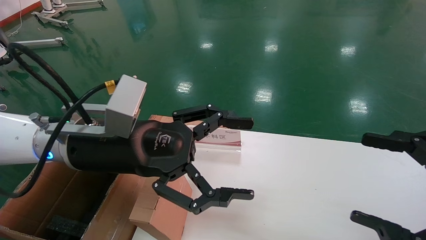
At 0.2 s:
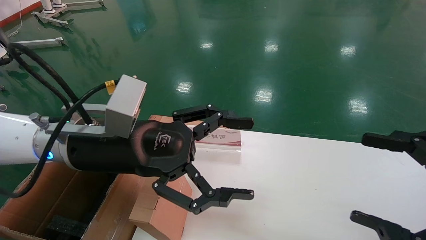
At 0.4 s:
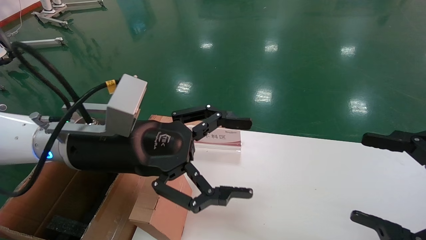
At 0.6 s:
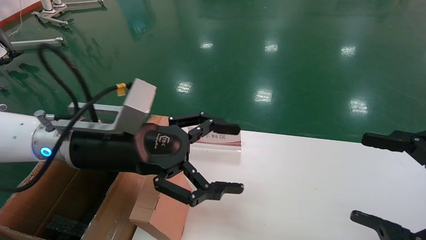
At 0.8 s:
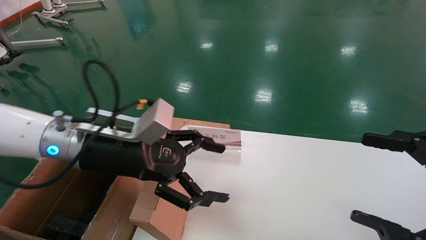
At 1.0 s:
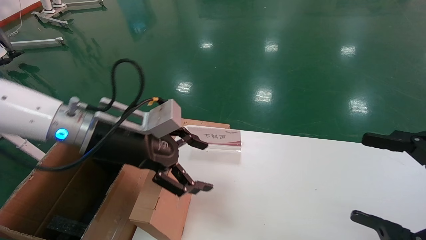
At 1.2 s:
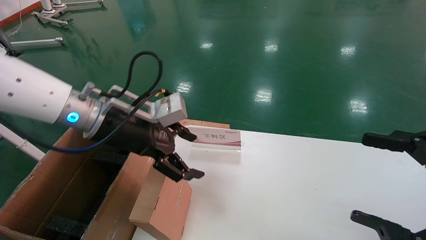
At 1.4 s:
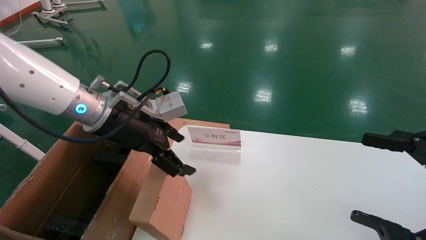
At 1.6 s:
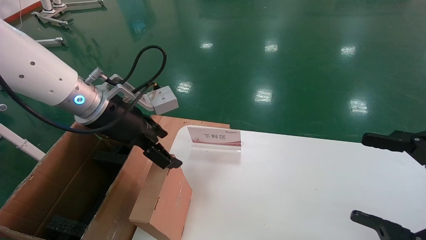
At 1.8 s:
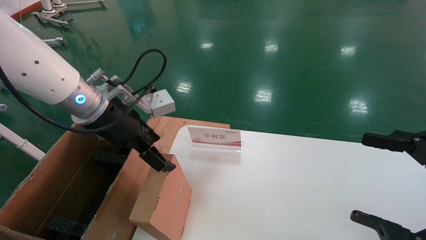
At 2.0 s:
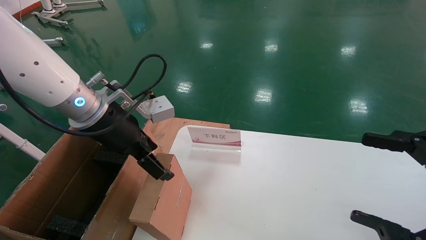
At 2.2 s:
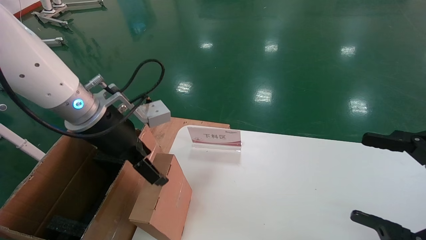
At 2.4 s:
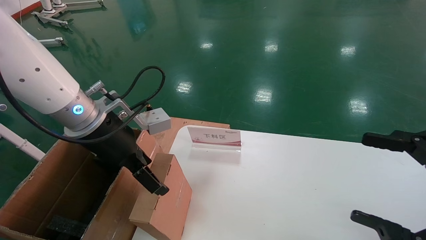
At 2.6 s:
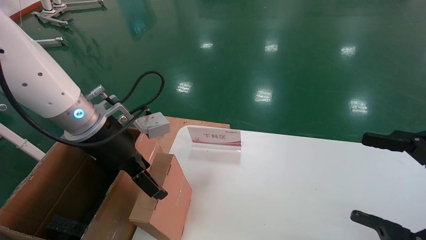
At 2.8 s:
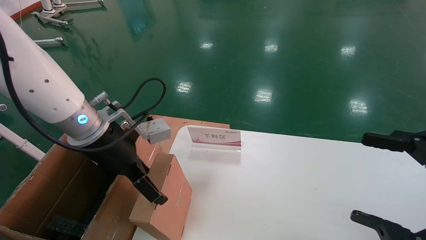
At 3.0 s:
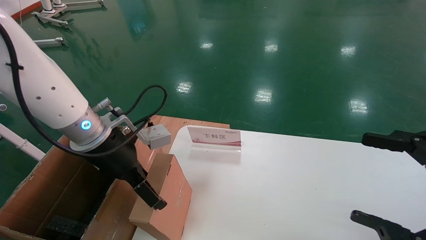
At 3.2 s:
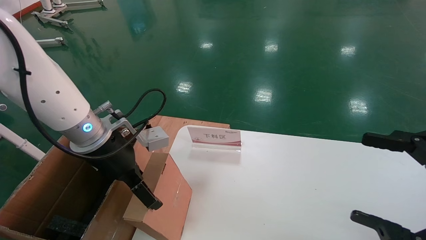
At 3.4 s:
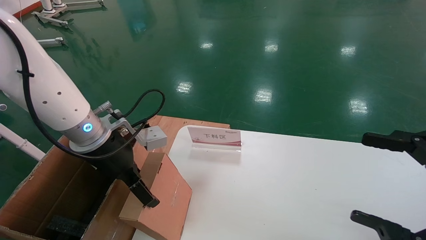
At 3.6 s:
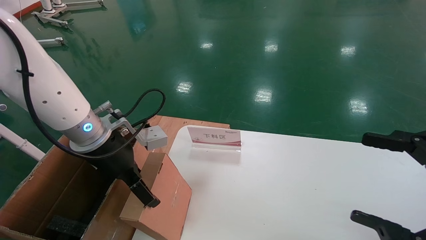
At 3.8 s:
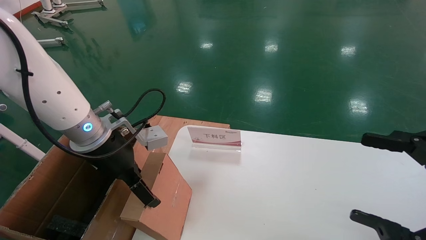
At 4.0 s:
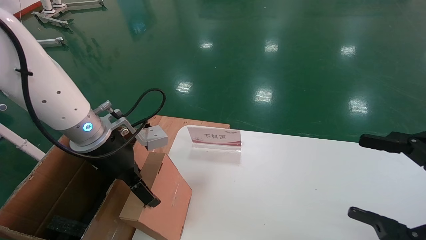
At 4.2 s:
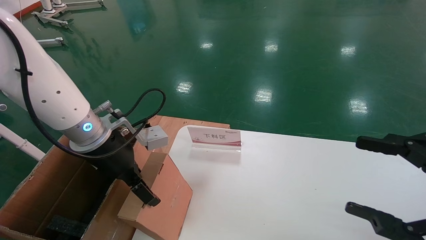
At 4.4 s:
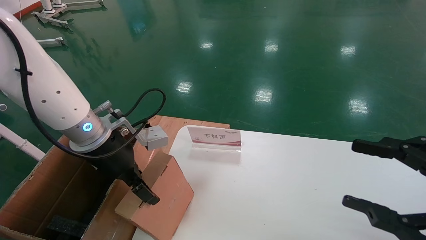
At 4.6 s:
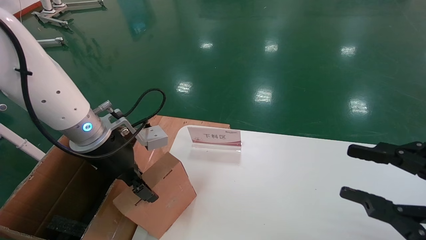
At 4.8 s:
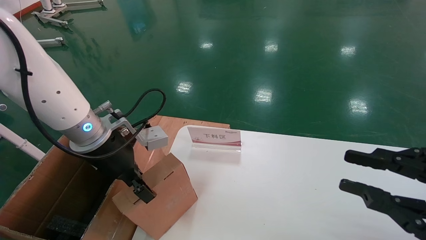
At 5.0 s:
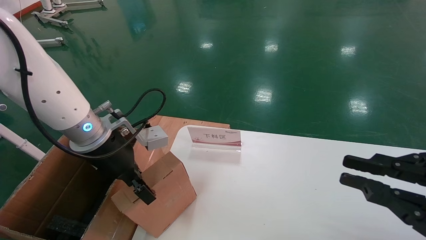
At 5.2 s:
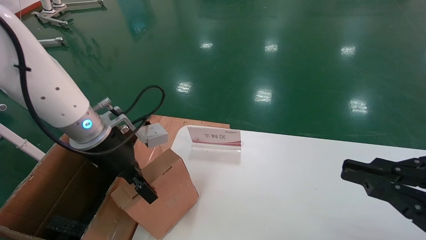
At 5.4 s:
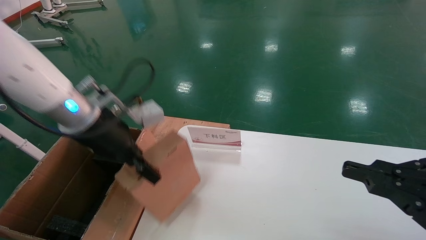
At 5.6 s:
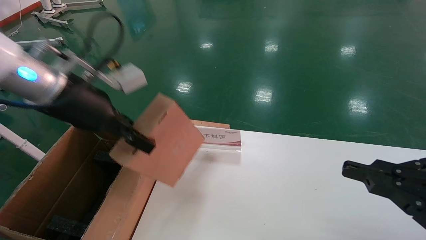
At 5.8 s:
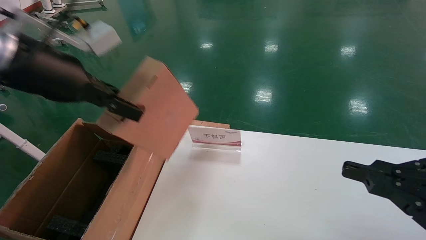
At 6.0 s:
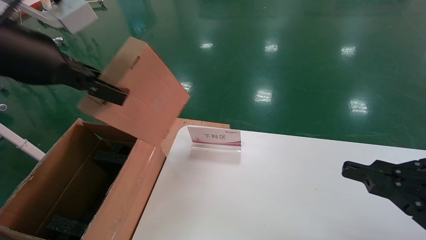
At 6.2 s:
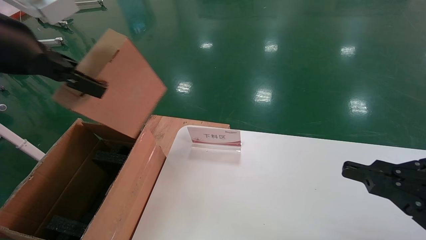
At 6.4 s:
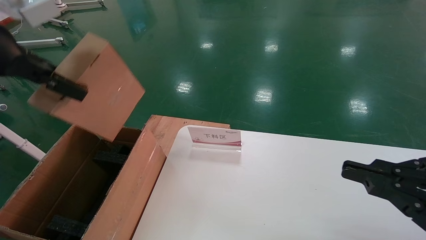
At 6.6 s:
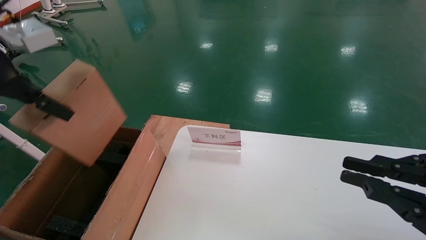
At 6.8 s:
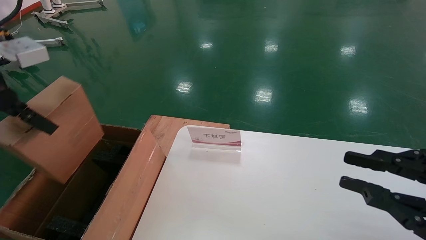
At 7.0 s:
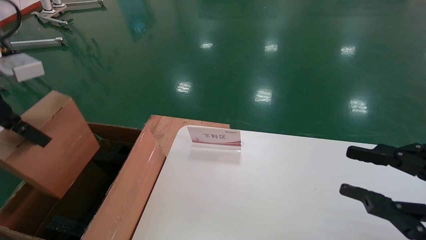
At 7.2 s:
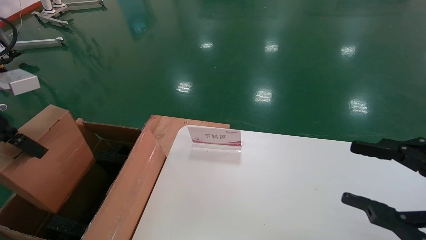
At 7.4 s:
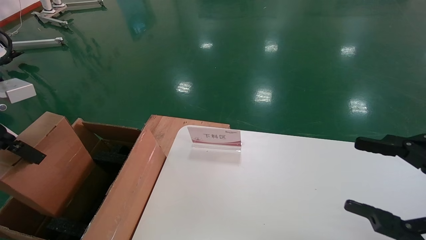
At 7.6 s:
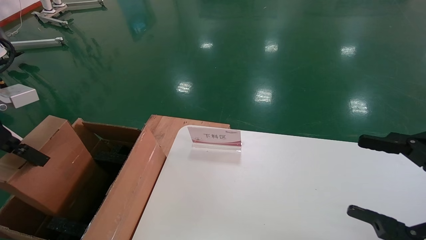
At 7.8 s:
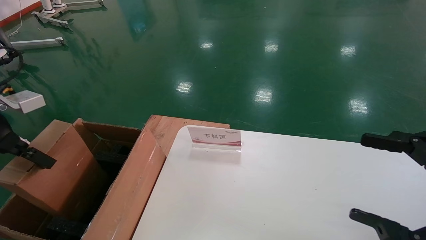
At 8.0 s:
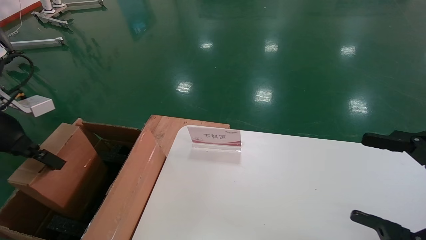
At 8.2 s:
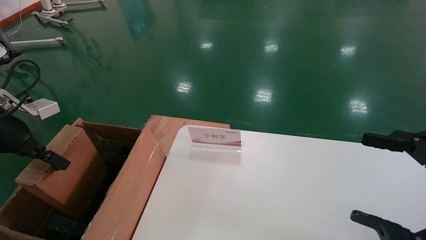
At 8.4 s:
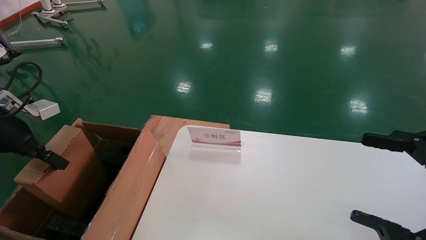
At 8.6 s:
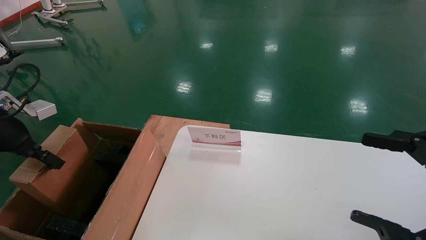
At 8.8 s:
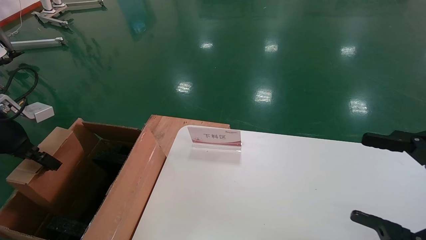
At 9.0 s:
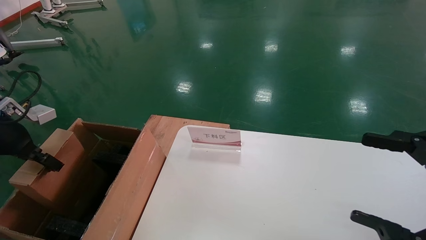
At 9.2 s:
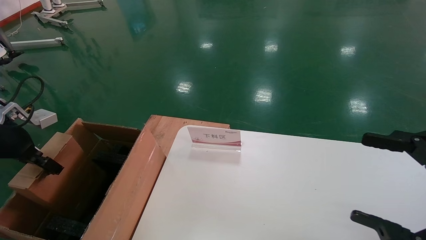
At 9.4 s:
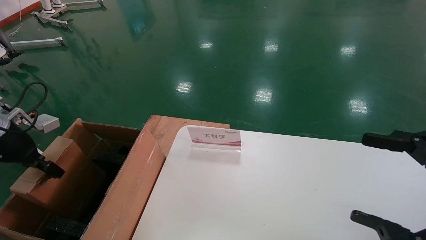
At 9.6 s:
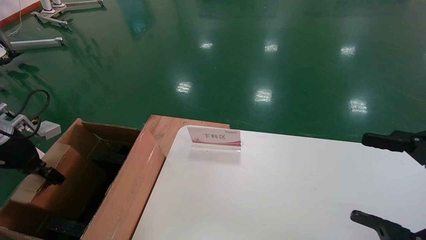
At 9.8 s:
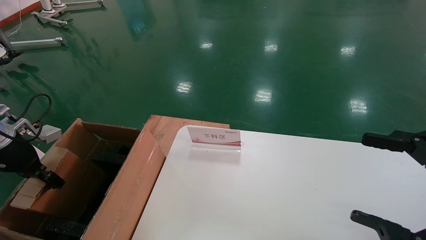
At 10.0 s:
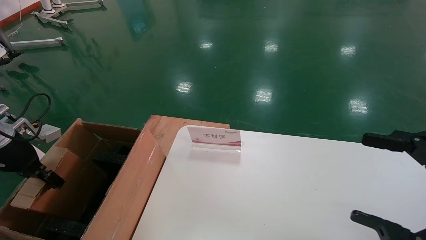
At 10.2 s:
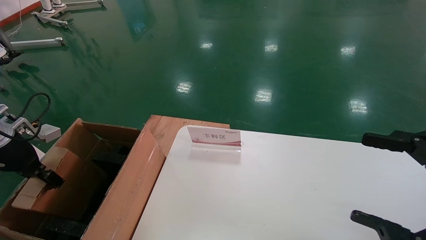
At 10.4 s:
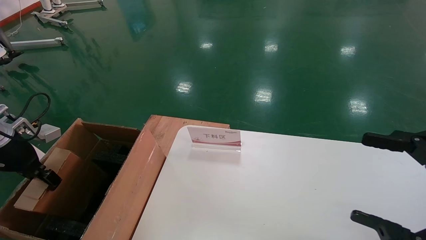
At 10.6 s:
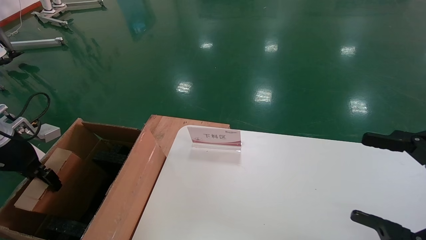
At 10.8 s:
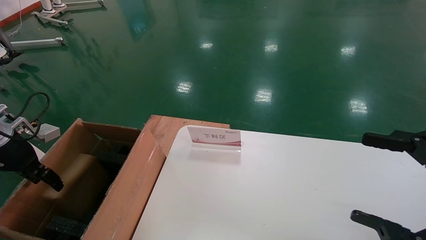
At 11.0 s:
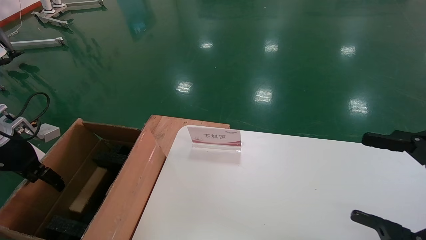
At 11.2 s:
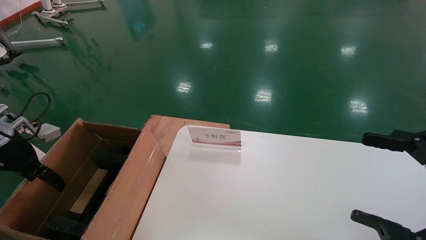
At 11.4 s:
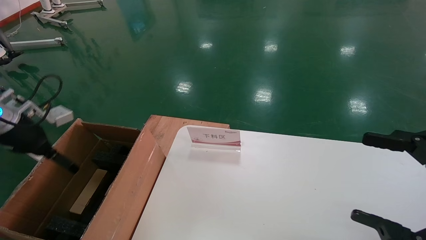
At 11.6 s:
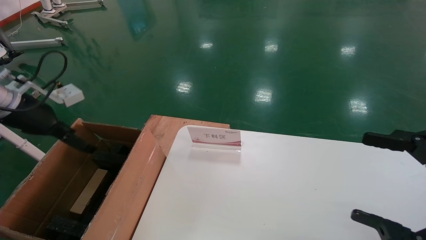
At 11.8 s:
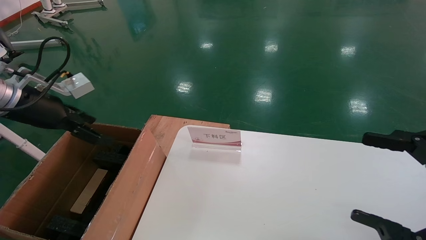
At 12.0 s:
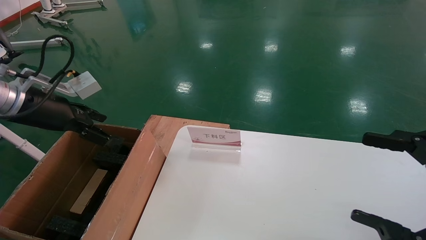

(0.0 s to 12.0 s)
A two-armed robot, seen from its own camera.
Task of the whole recording: pick up the small cardboard box and load it into the large cardboard box.
Step, 0.6 s - 4.4 s: Pick up the mouse and power cord box.
Step, 4.6 s - 10.6 s: Place the mouse and power cord box into the case.
0.0 s - 1.6 s: The left gripper shifts roughly 5 cm forward.
3.0 s - 4.4 s: Both grippers stay put.
4.4 s - 6.0 s: The right gripper closes, while the left gripper moves upward and backward, about 20 cm, and closes its fingers.
6.0 s - 7.6 s: The left gripper shifts about 15 cm to the left and downward. Meanwhile the right gripper opens up.
7.6 s - 9.0 s: The left gripper moves downward, forward and to the left, some 10 cm.
9.0 s - 10.4 s: The grippers make only small movements.
10.4 s - 12.0 s: The left gripper travels to the right and upward by about 15 cm, and opens its fingers.

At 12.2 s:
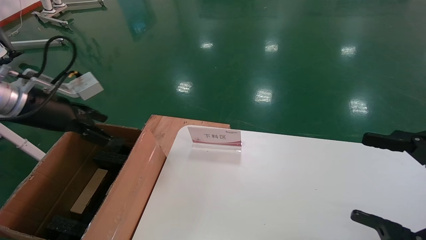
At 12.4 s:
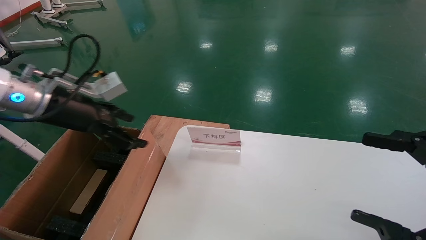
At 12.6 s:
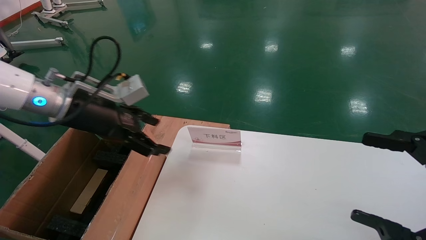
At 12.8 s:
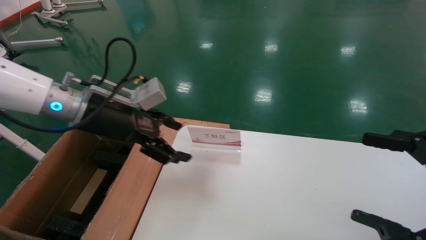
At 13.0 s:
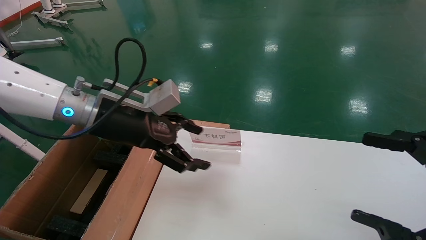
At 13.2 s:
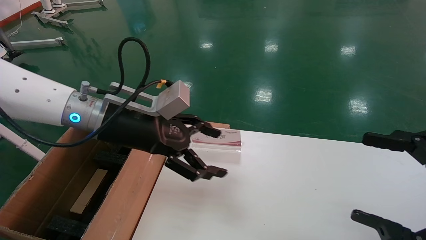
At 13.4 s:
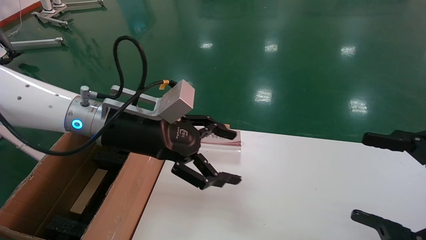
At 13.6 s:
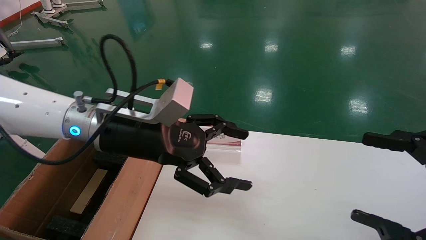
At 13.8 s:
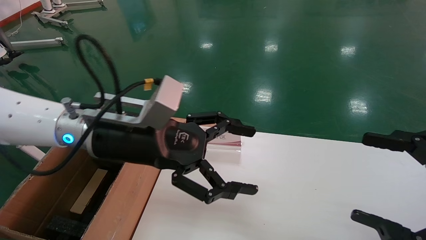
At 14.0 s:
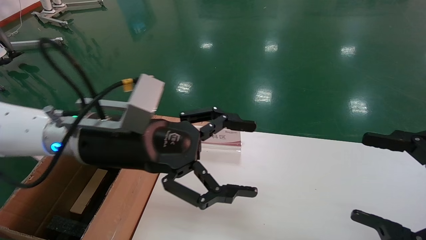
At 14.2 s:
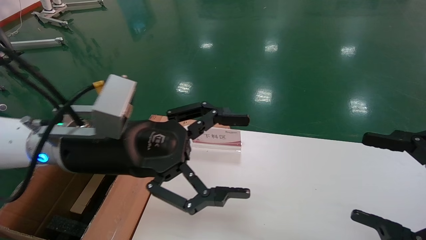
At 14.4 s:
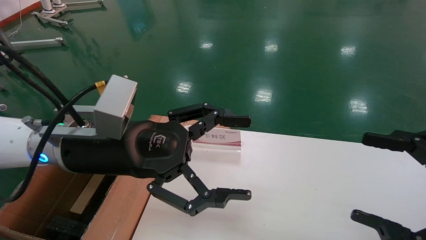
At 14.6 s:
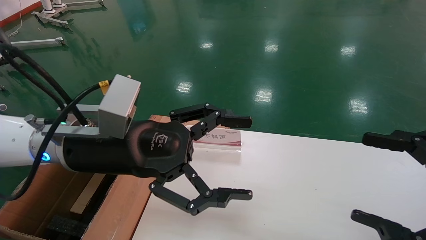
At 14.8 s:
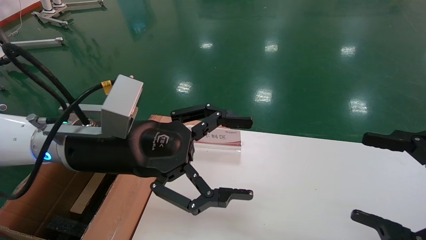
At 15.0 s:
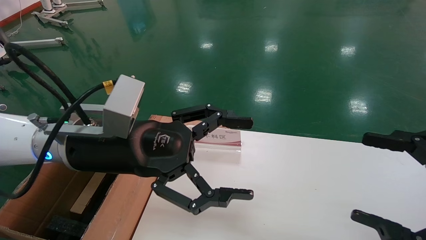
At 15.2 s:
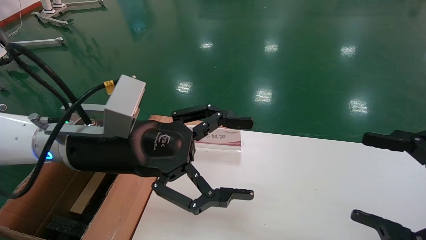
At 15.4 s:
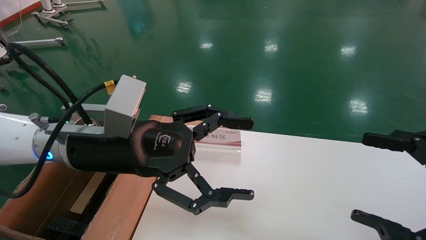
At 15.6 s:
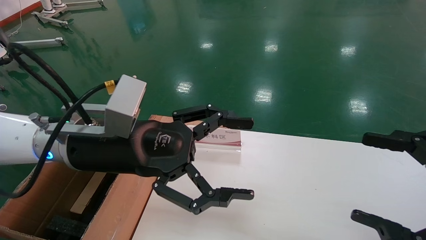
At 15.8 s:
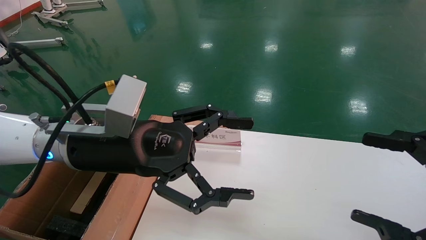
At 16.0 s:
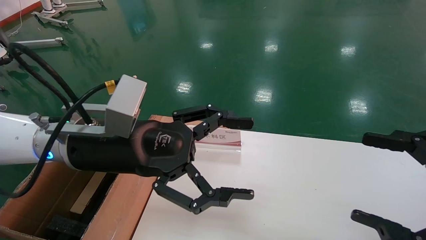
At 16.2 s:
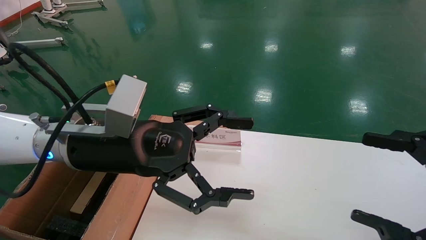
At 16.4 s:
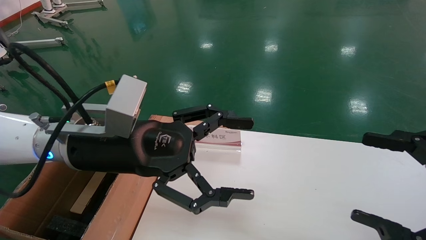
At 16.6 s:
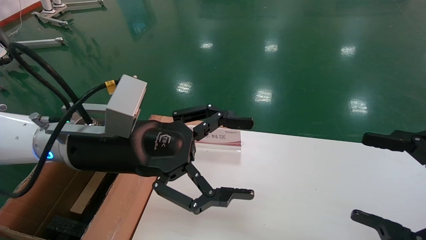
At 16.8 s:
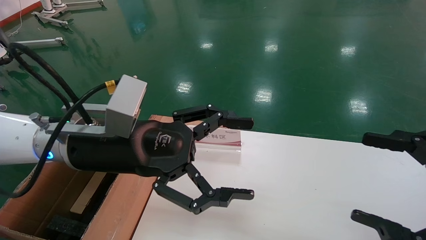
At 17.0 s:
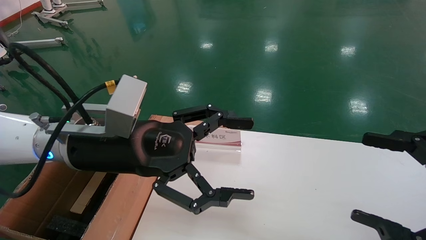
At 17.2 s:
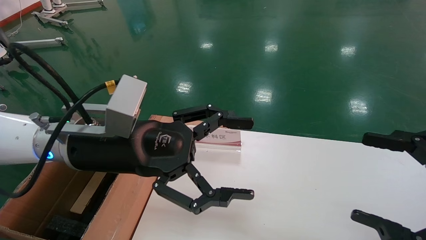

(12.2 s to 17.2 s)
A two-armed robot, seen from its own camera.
Task of the whole recording: pick up the small cardboard box and load it into the large cardboard box.
12.2 s - 13.8 s: The left gripper travels to the right by about 20 cm.
13.8 s - 15.6 s: The grippers stay close to where they were, moving slightly.
15.6 s - 17.2 s: Both grippers stay about where they are.
